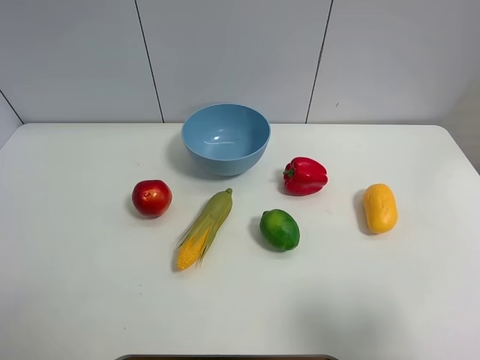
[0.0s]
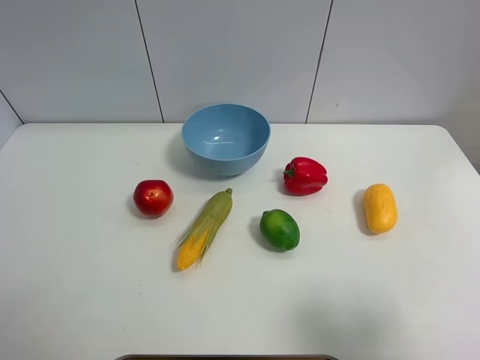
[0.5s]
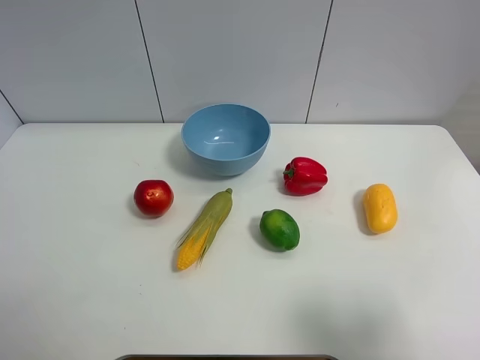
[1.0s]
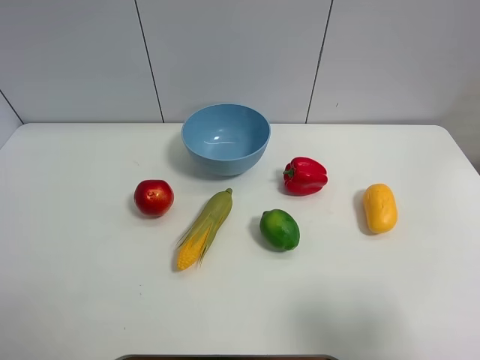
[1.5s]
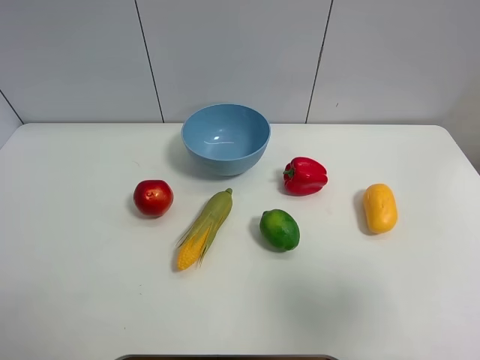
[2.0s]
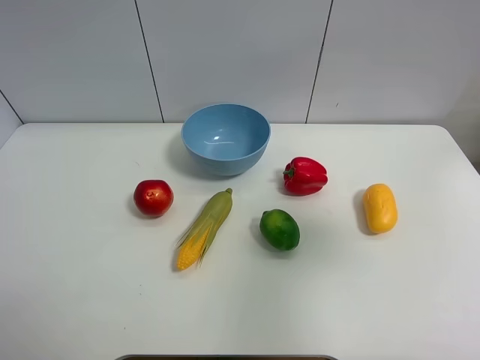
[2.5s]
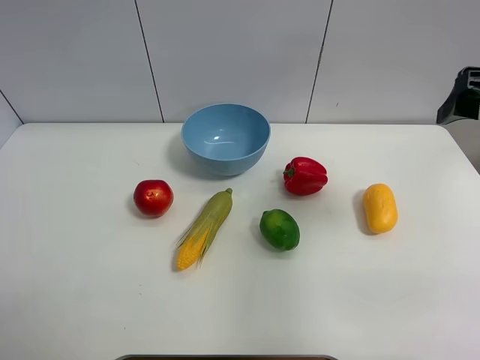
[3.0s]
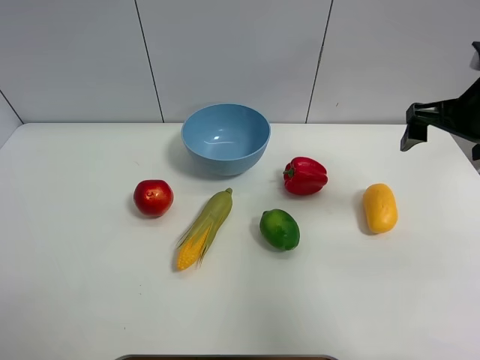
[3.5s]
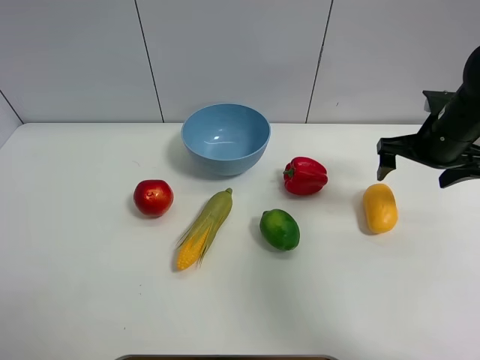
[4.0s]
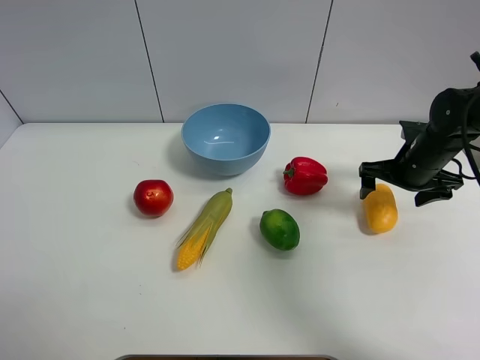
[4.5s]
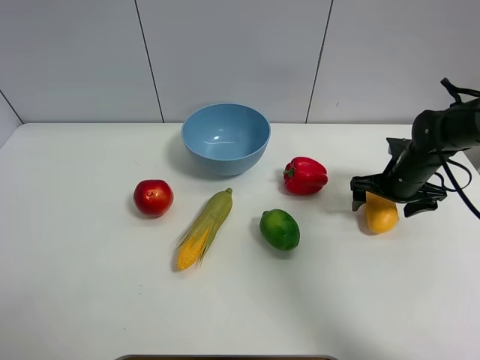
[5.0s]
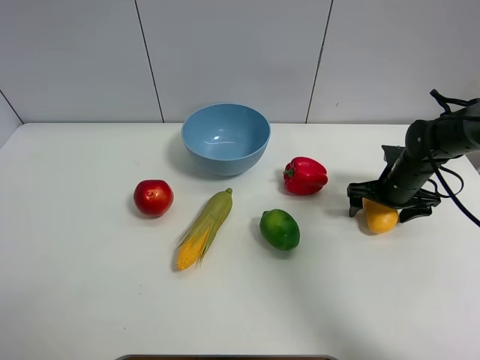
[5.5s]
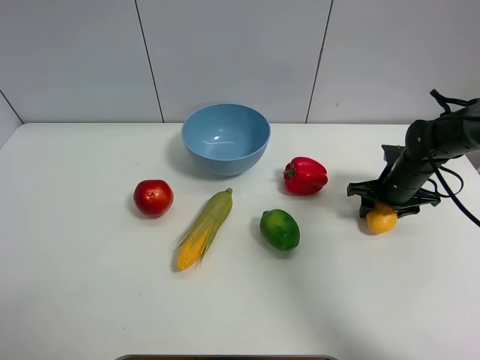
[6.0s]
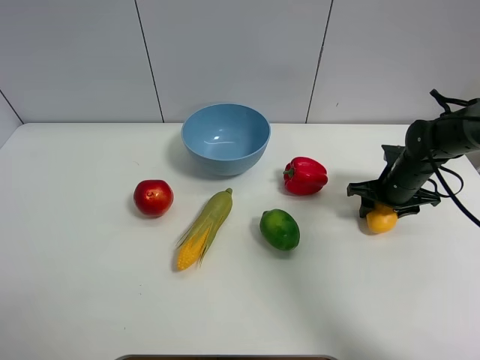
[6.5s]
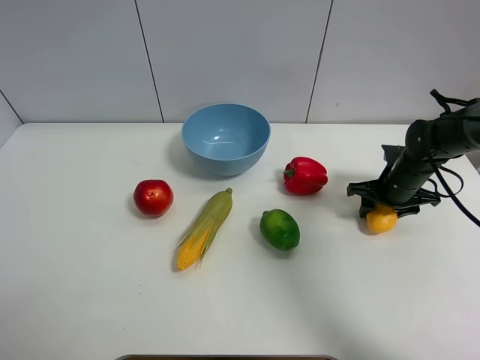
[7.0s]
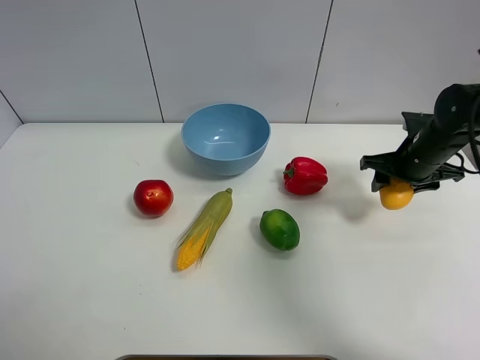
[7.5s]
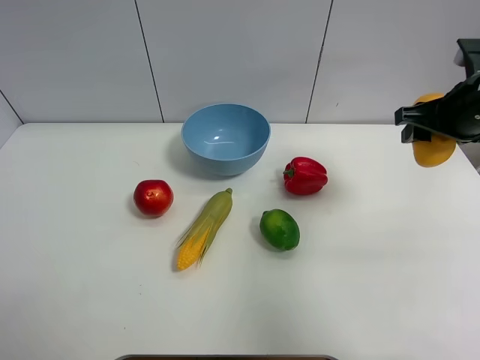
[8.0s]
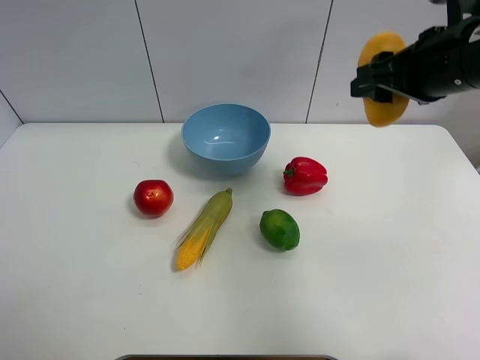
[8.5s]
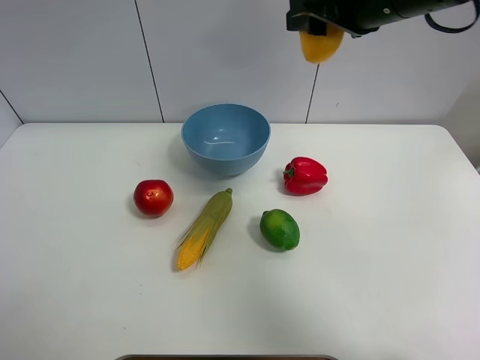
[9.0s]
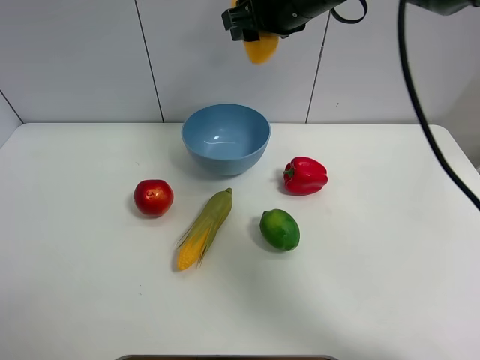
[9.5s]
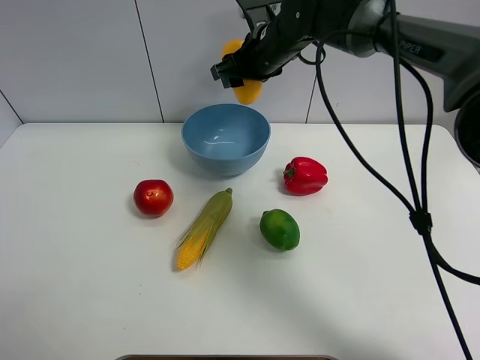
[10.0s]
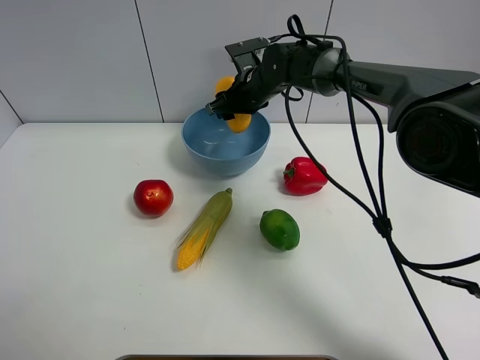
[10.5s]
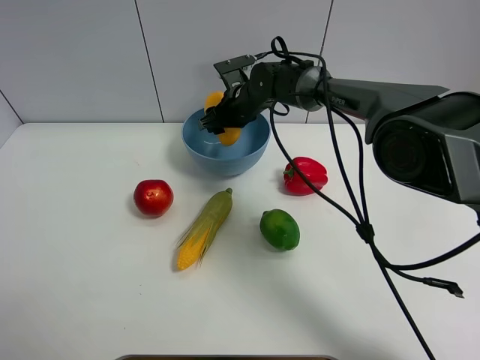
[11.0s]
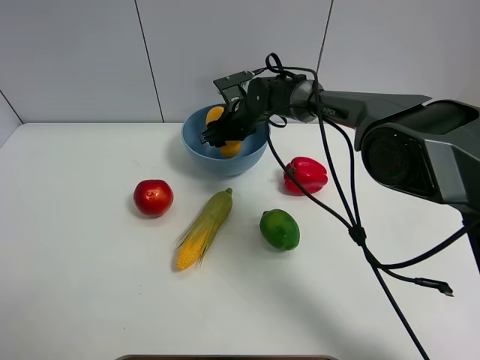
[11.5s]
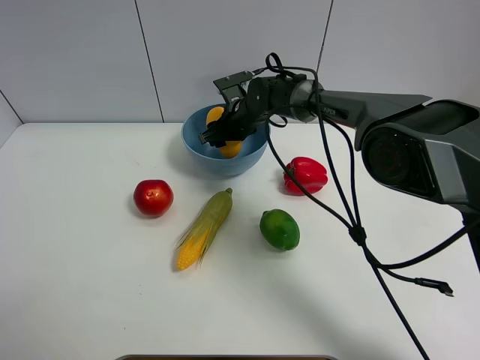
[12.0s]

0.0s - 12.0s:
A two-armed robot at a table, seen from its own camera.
Task of the whole recording: Put the three fruits on the table into a bowl.
Step, 0.0s - 6.0s: Grasp the mango with right gripper.
0.0s - 2.0s: The right gripper moves upward, some 5 cm.
2.0s - 4.0s: The right gripper heads forward and downward, covering approximately 30 cm.
4.0s - 6.0s: The right gripper moves downward, some 10 cm, and closes.
6.0s - 8.0s: The right gripper heads upward, covering about 20 cm.
8.0s - 10.0s: The right gripper heads to the left and forward, covering approximately 30 cm.
10.0s - 12.0s: The right gripper goes about 15 cm downward.

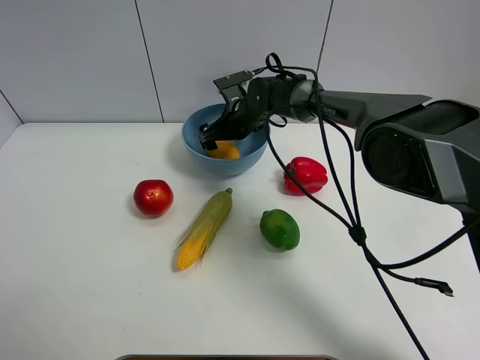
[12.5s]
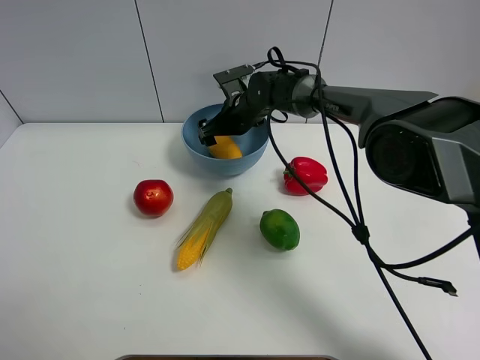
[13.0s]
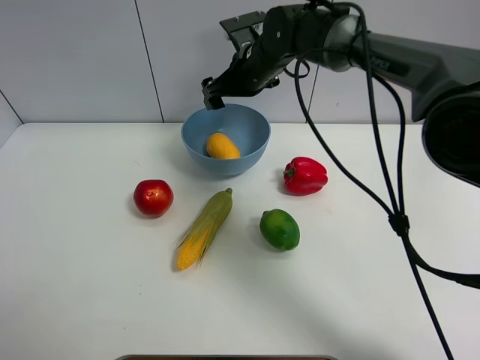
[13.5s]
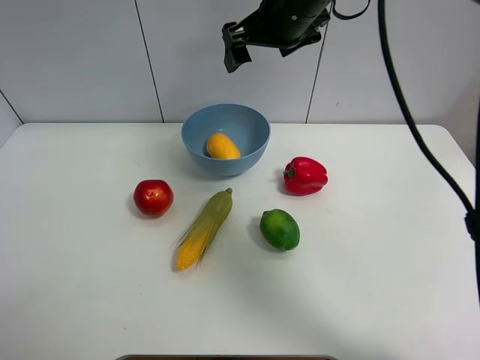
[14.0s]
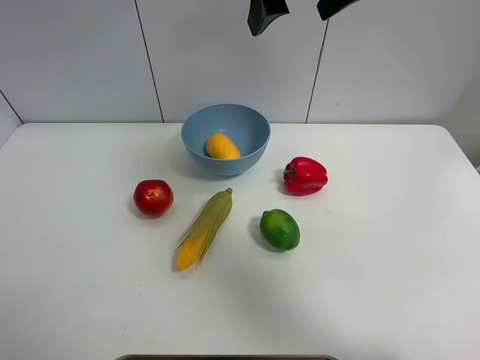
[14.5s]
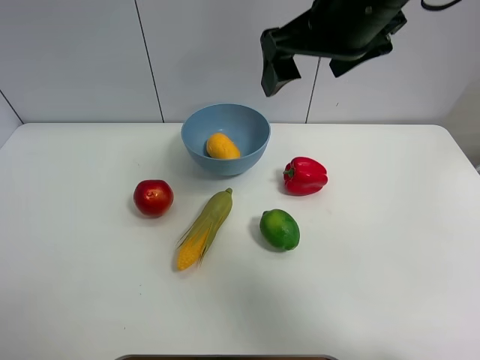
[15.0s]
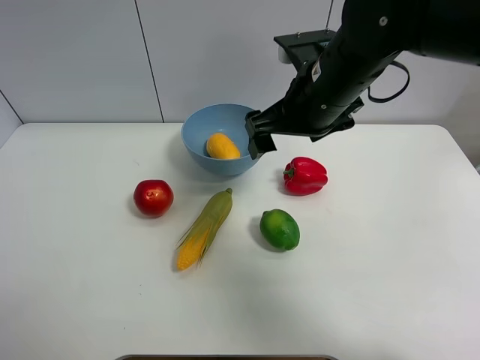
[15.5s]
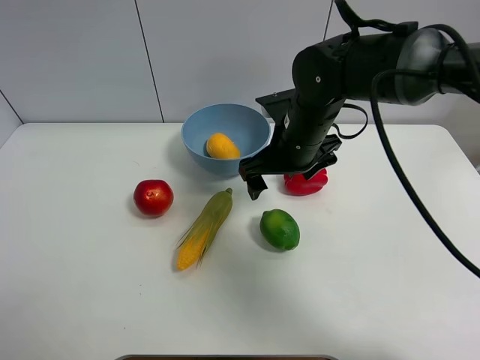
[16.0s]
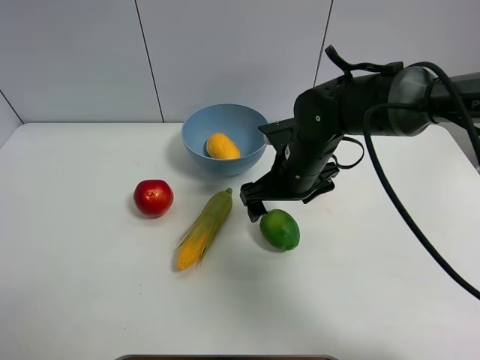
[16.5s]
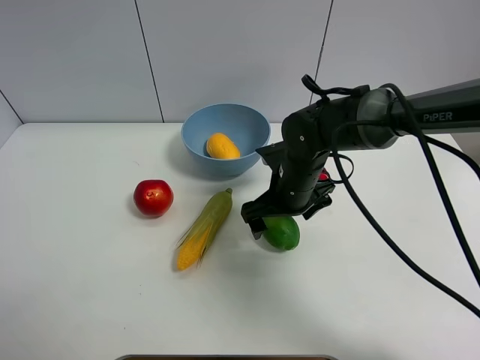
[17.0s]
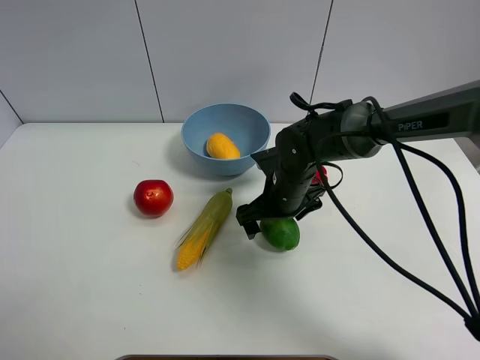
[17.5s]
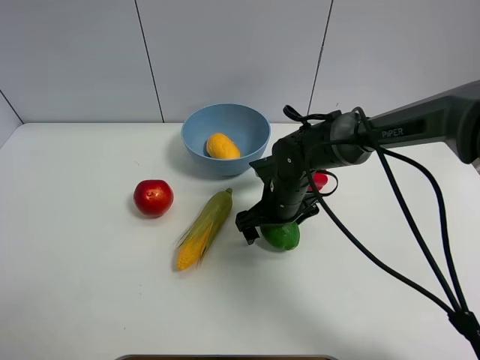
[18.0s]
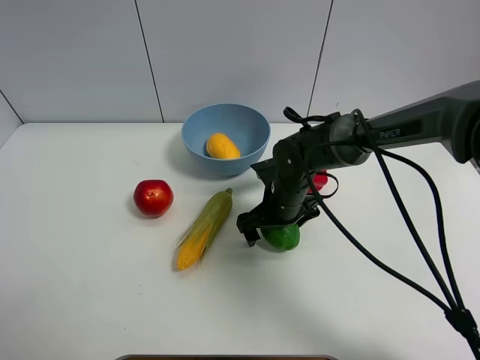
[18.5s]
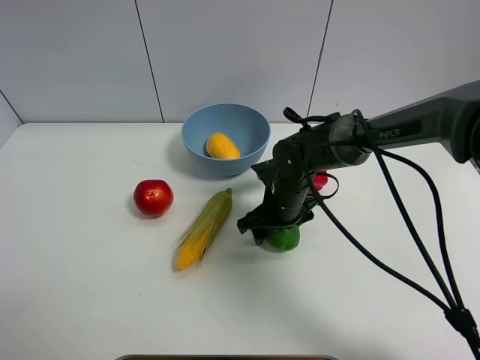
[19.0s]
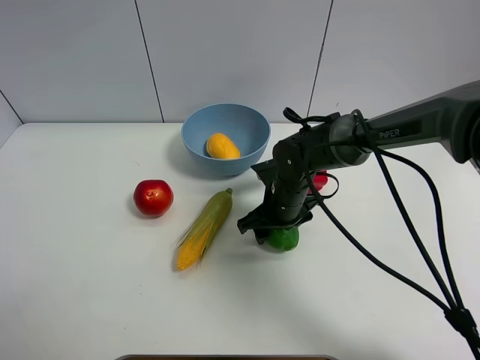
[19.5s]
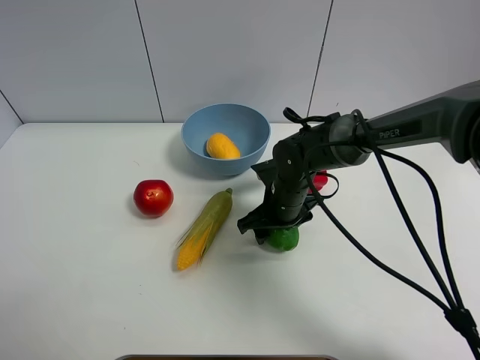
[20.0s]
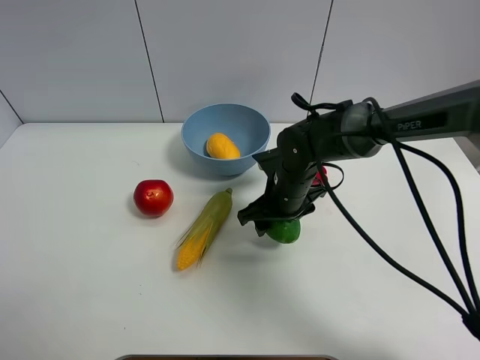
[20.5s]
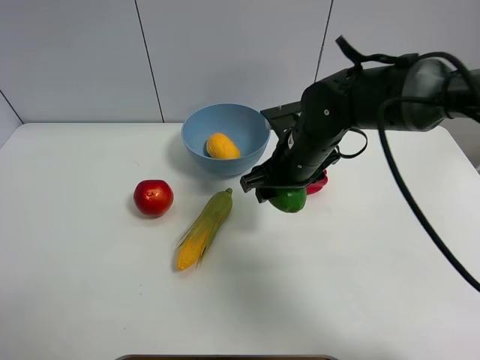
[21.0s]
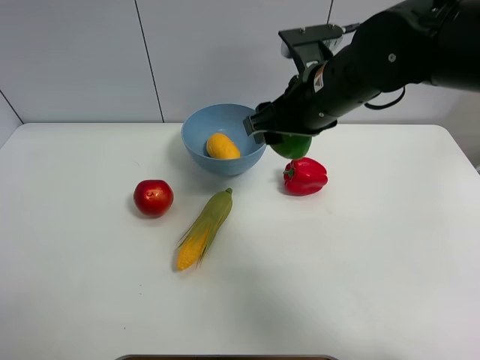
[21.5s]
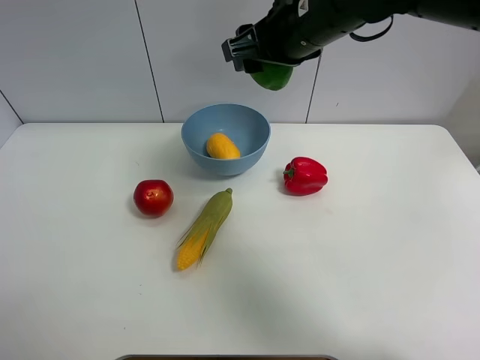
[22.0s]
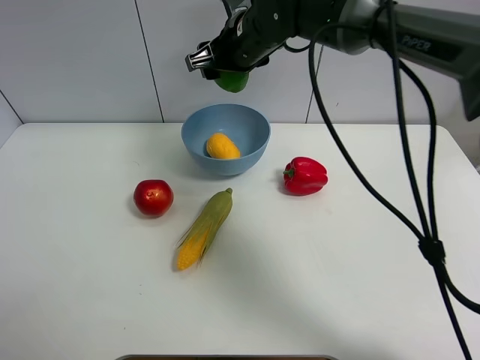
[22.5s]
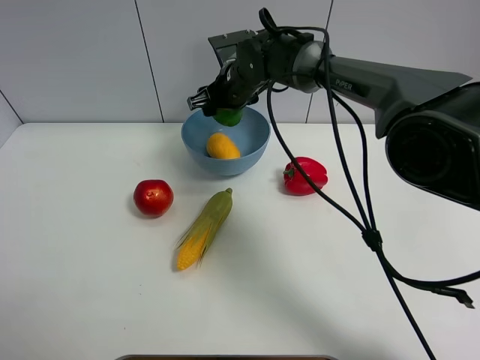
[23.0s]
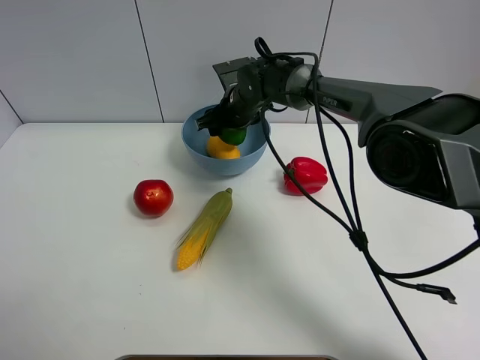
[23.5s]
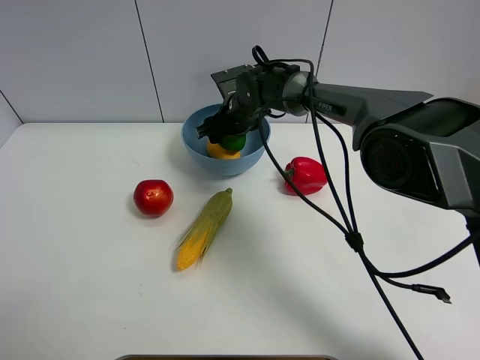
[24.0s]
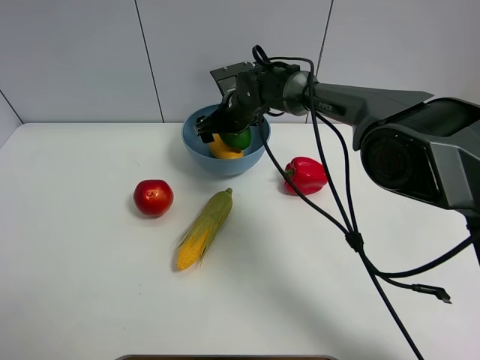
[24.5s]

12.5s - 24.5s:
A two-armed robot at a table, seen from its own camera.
Task of the whole recording: Put the three fruits on the table into a bowl.
Step, 13.5s - 19.0s: Grasp the green lemon with right gripper.
12.5s - 14.5s: The right gripper is displaced upward and backward by about 35 cm.
14.5s - 16.5s: The right gripper is displaced downward by some 25 cm.
16.5s - 18.5s: The right gripper is displaced downward by roughly 10 cm.
18.5s - 20.5s: The right gripper closes up.
20.5s - 22.5s: The right gripper travels upward and forward by approximately 20 cm.
22.5s - 24.5s: The right gripper shifts approximately 15 cm downward, and opens up.

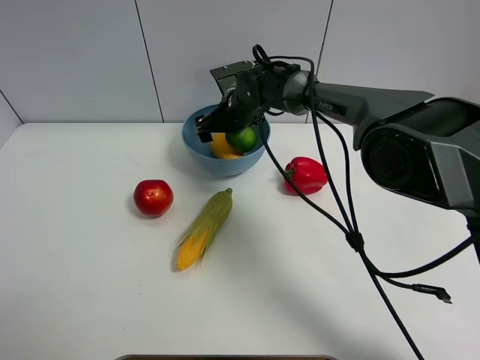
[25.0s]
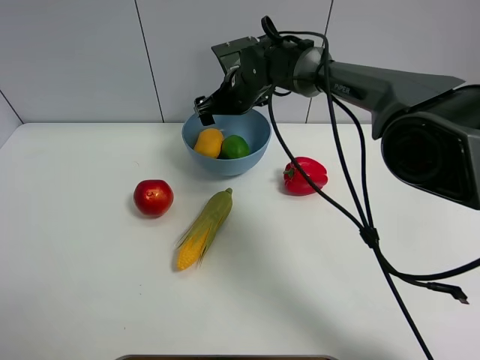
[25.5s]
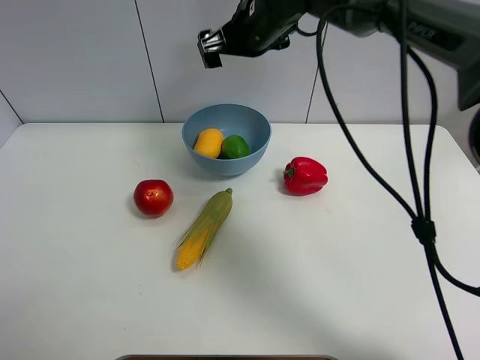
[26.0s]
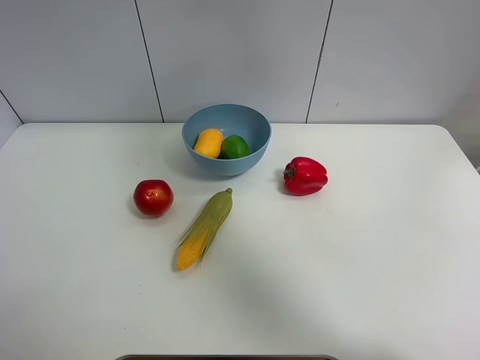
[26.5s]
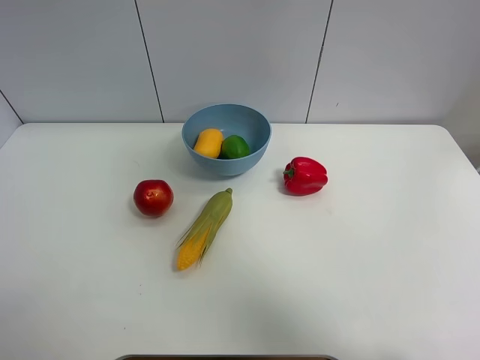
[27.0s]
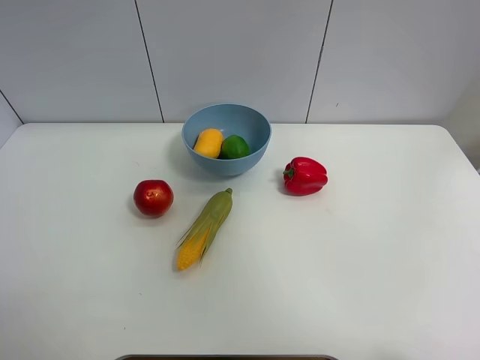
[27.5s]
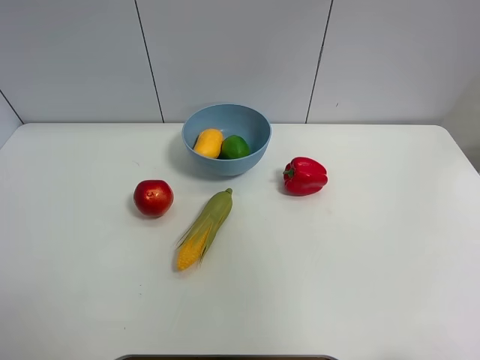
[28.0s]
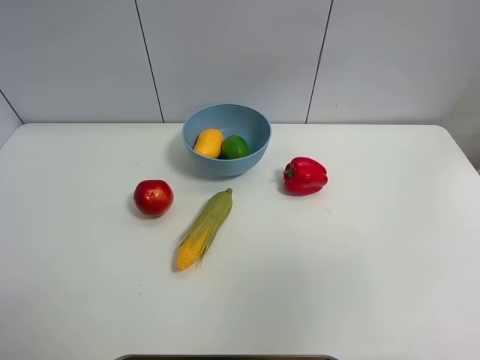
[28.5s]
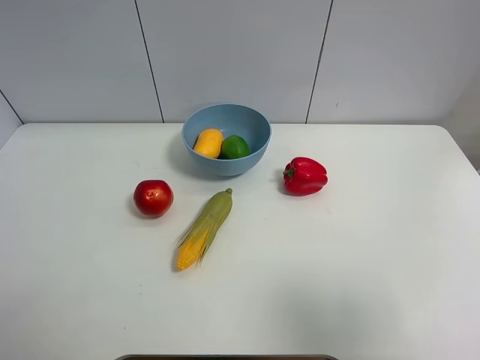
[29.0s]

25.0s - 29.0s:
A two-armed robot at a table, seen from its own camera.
Task of the whole recording: Put the three fruits on the table into a bowl.
25.0s - 27.0s: The right gripper shifts approximately 50 cm upward, backward and to the right.
27.0s - 29.0s: The right gripper is displaced backward, downward and to the right by about 35 cm.
